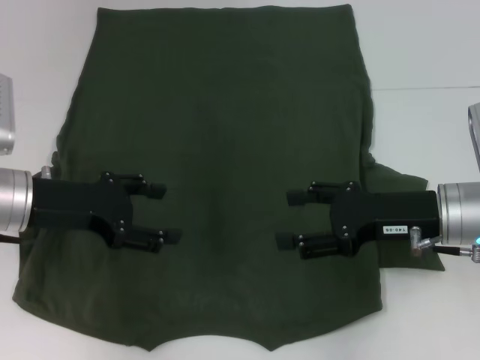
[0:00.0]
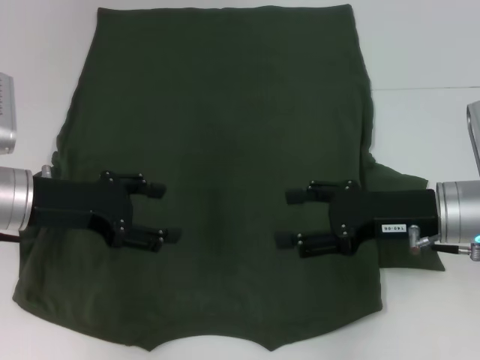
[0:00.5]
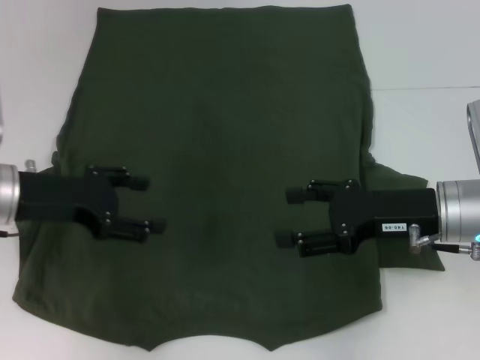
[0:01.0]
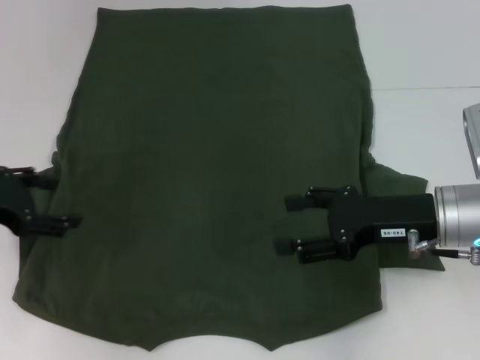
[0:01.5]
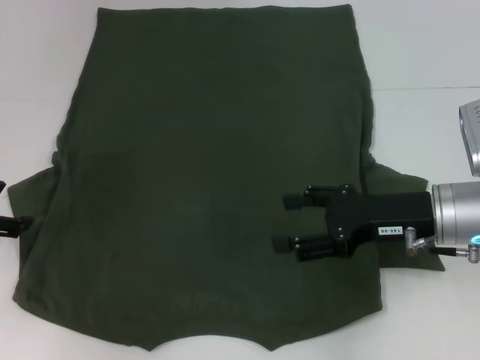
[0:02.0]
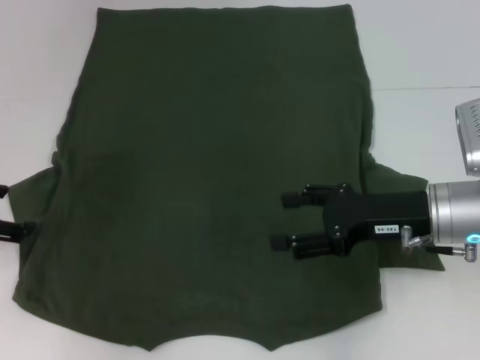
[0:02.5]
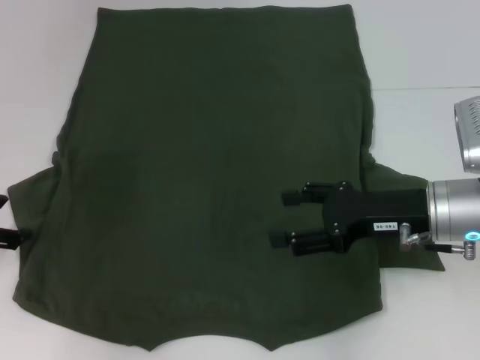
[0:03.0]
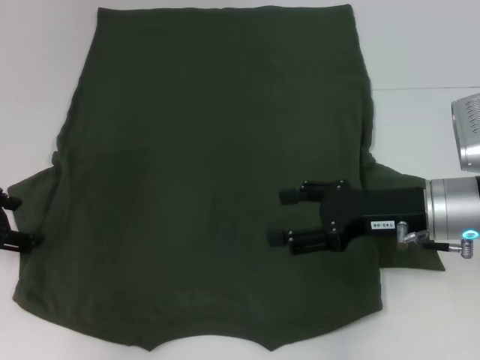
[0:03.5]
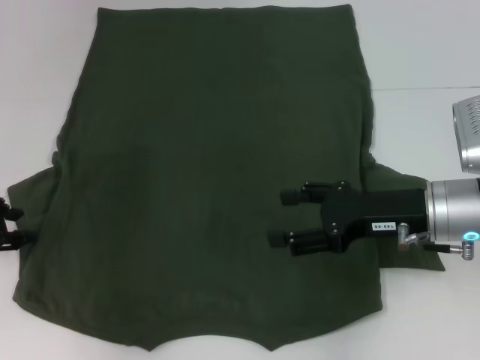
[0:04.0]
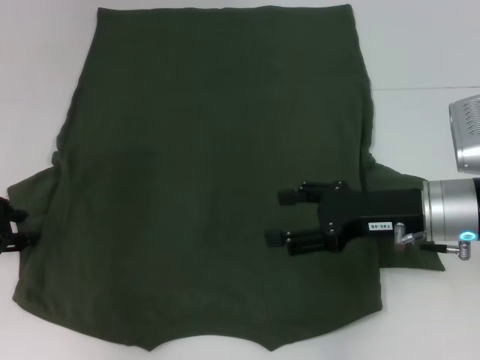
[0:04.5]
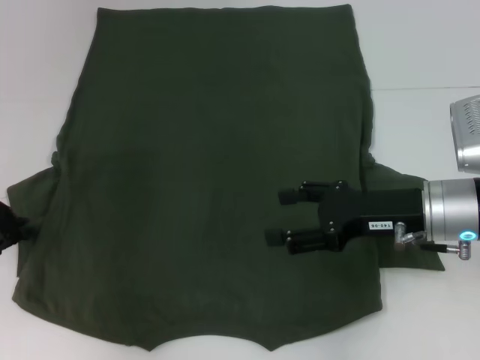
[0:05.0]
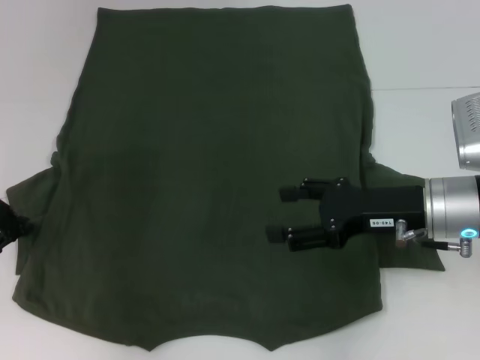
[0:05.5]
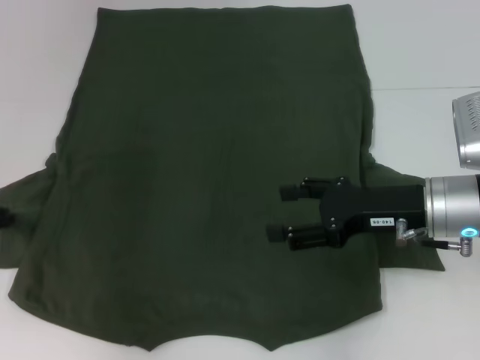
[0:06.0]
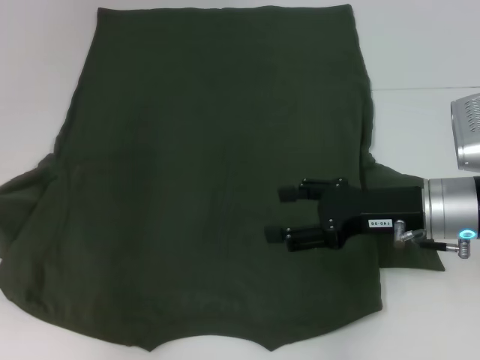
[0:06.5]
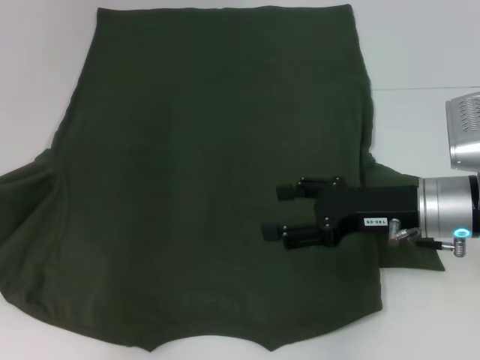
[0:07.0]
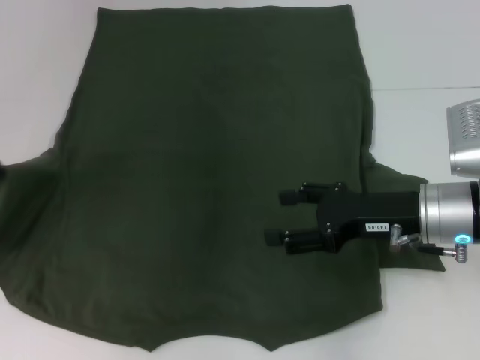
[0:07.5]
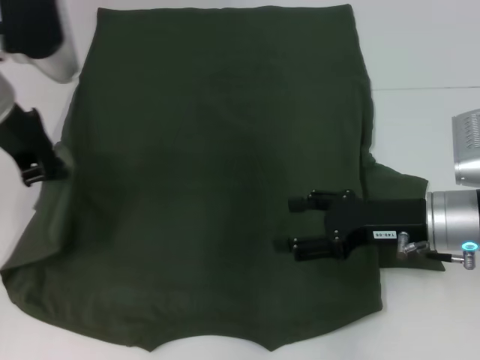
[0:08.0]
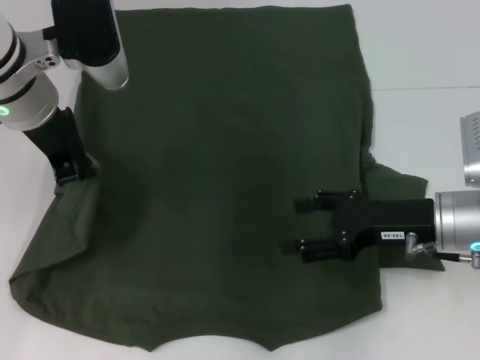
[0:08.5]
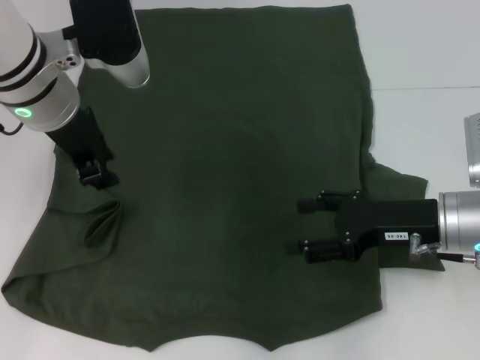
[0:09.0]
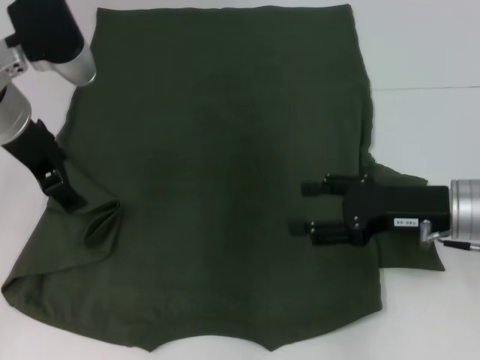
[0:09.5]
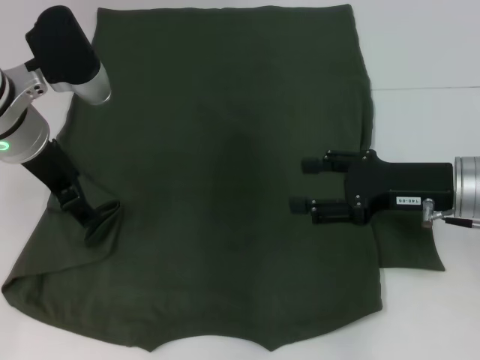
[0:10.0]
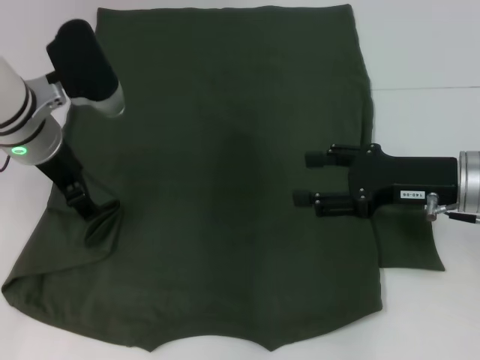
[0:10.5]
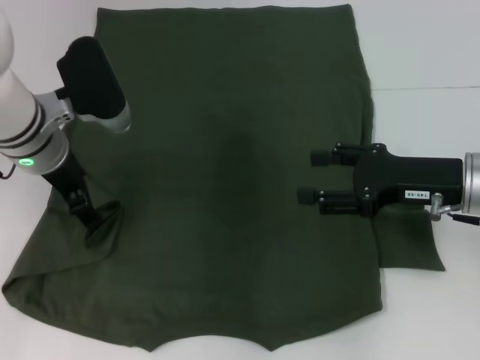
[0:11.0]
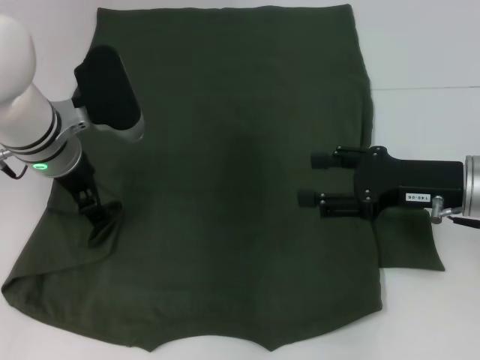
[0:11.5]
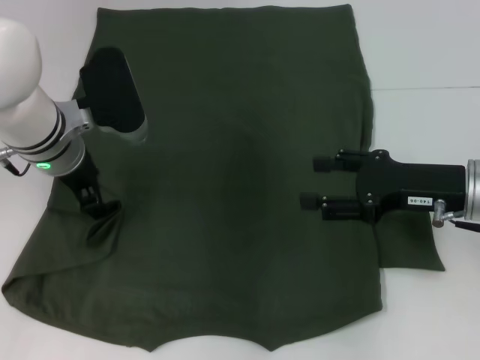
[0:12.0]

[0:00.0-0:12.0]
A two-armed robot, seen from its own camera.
0:00.0 to 0:02.0: The left gripper is displaced to the left by about 10 cm.
0:02.0 to 0:04.0: The left gripper closes.
0:04.0 to 0:06.0: The left gripper closes up.
0:06.0 to 0:08.0: The left gripper is displaced to the right and upward by some 15 cm.
0:08.0 to 0:10.0: The left gripper opens up.
0:10.0 to 0:12.0: The left gripper changes place by about 5 cm.

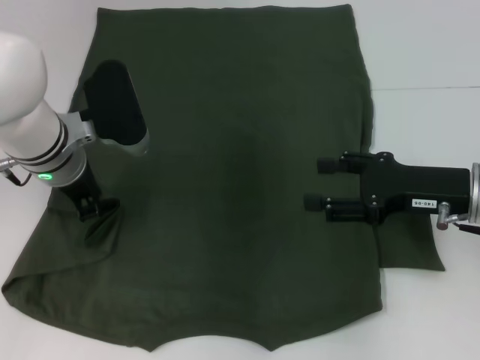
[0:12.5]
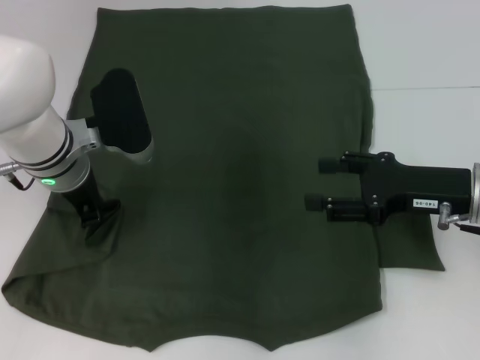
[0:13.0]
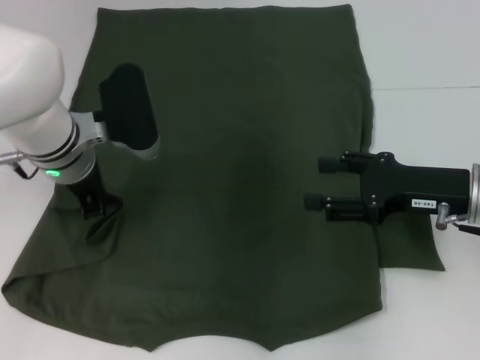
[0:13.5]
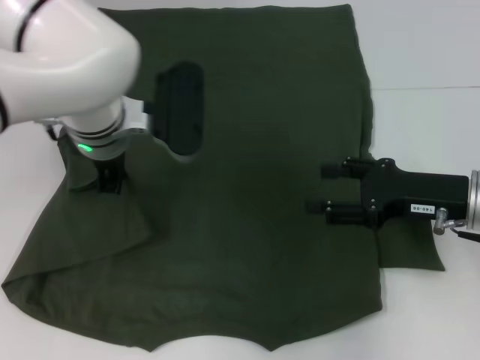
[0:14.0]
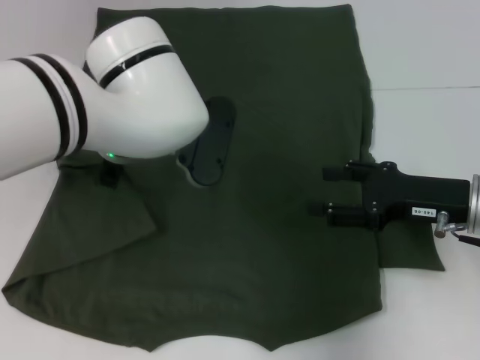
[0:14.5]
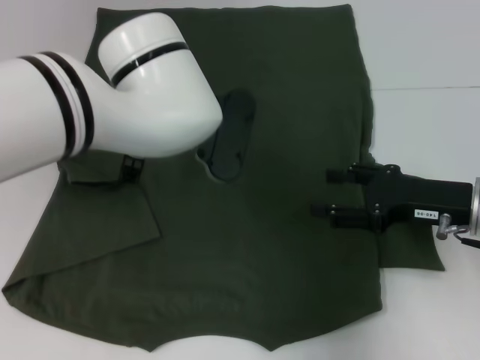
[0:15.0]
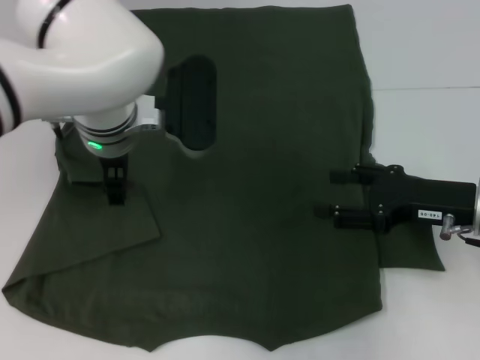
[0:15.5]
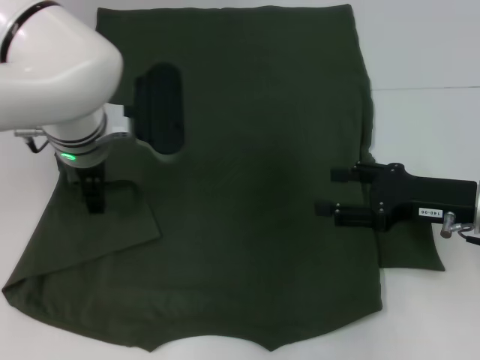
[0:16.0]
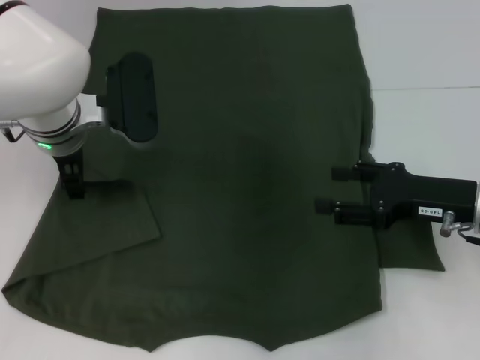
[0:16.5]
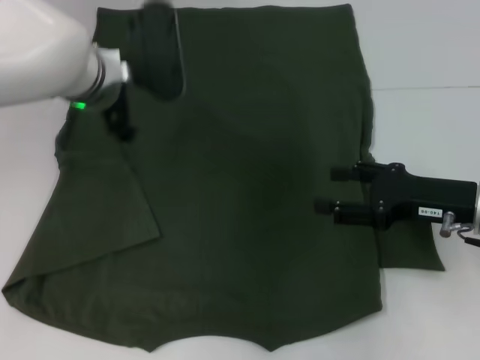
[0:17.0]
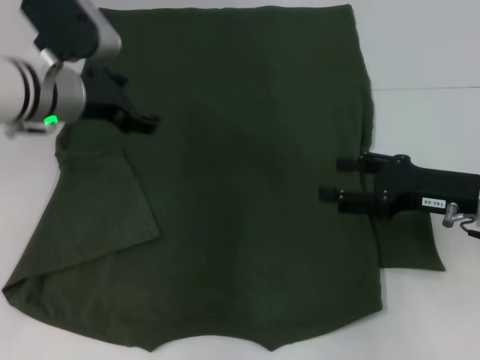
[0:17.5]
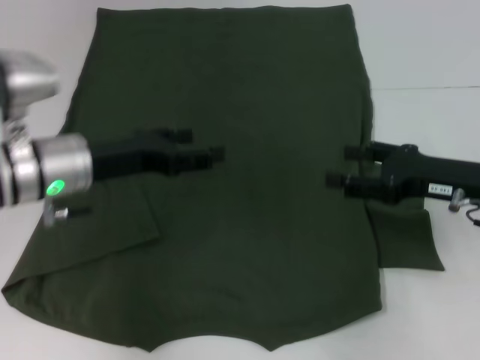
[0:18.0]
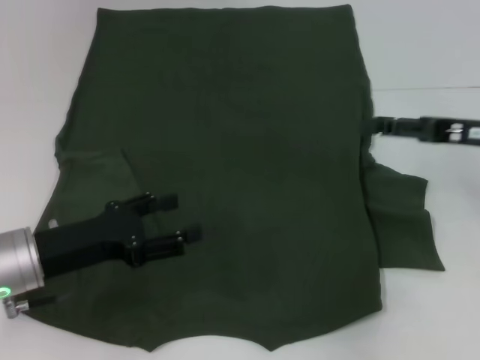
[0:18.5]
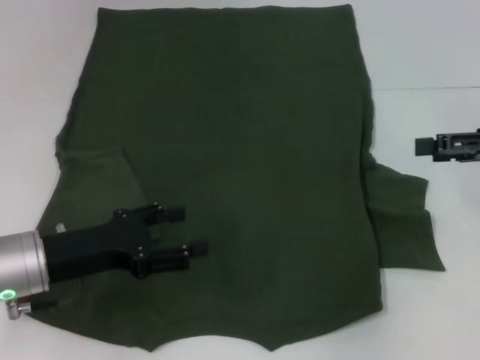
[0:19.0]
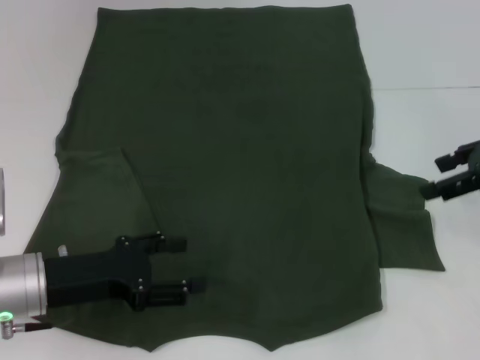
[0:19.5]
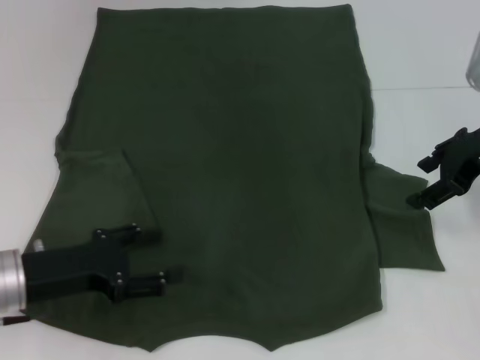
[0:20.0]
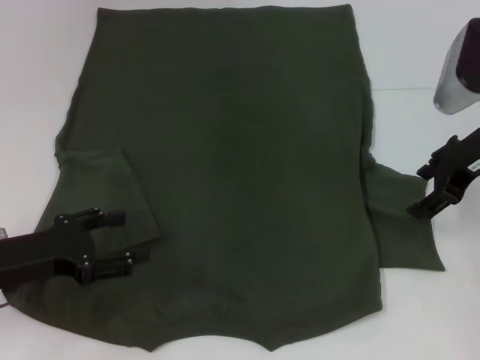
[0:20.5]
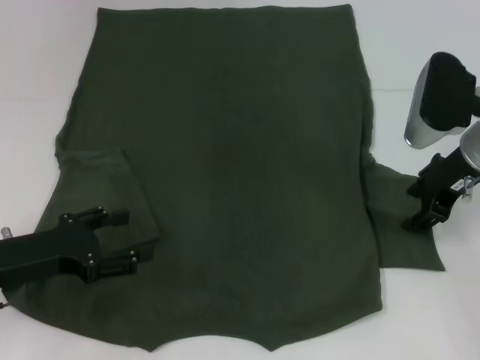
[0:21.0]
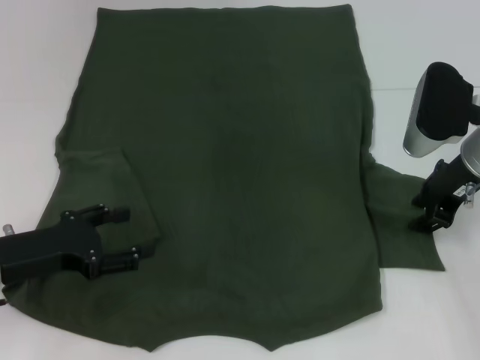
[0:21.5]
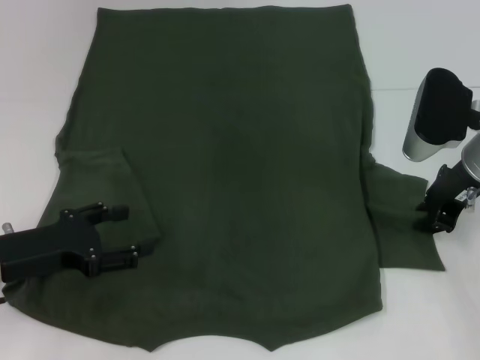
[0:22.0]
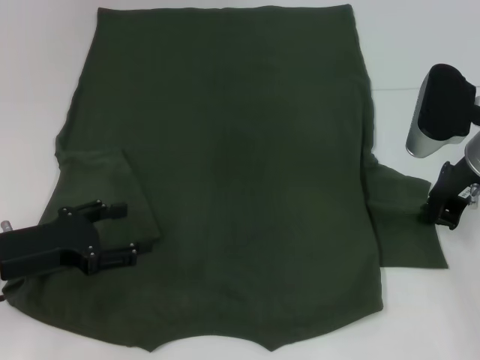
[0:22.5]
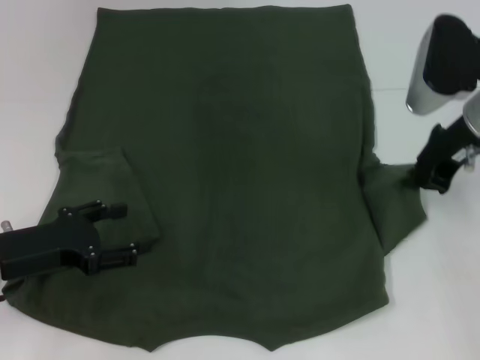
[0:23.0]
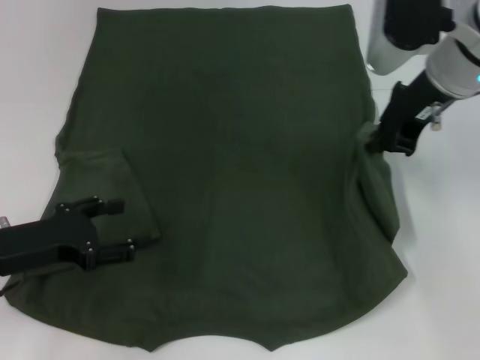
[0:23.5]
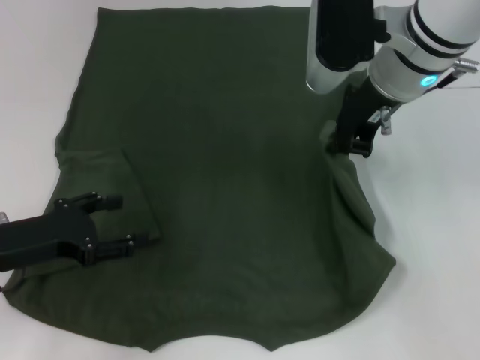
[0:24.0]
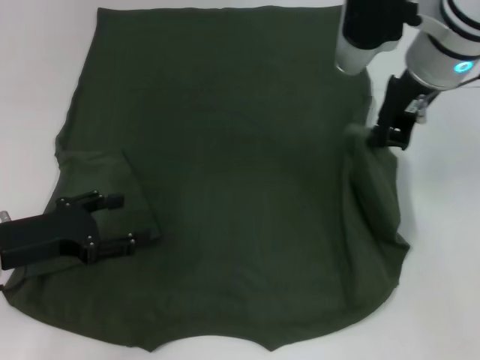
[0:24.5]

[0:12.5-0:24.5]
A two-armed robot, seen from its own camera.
Step, 0:12.5 to 0:17.0: Fold the bottom left sleeve with your left hand.
0:12.5 to 0:14.5: The left gripper shifts roughly 10 cm to the right, and closes.
0:14.5 to 0:16.5: The left gripper moves to the left, roughly 10 cm, and opens up.
0:16.5 to 0:18.5: The right gripper moves upward, some 5 cm; the left gripper shifts approximately 20 cm backward, to the left and downward.
0:18.5 to 0:20.5: The right gripper ends up some 5 cm from where it was.
0:20.5 to 0:22.5: The right gripper closes up.
0:22.5 to 0:24.5: The right gripper moves upward and to the left, about 15 cm.

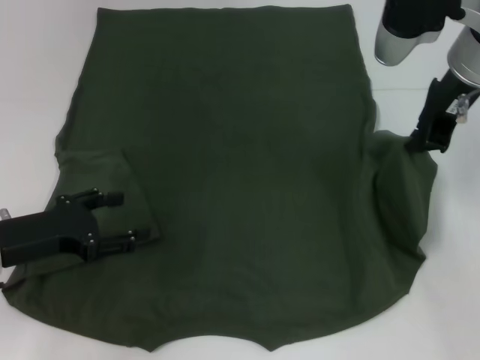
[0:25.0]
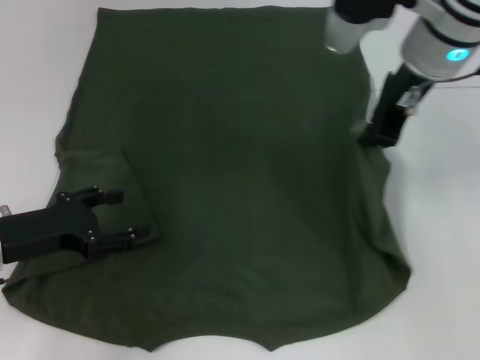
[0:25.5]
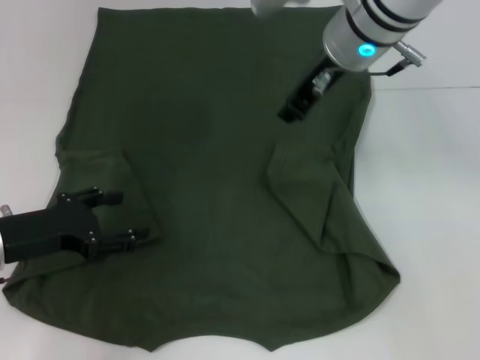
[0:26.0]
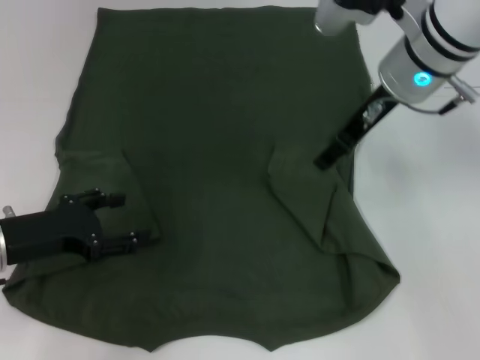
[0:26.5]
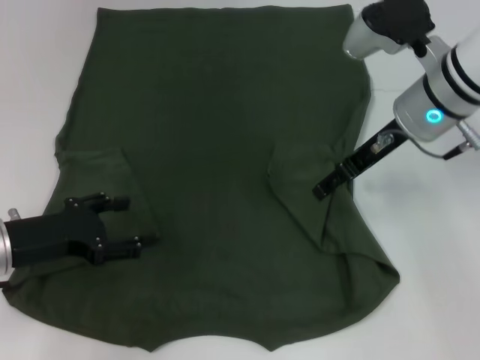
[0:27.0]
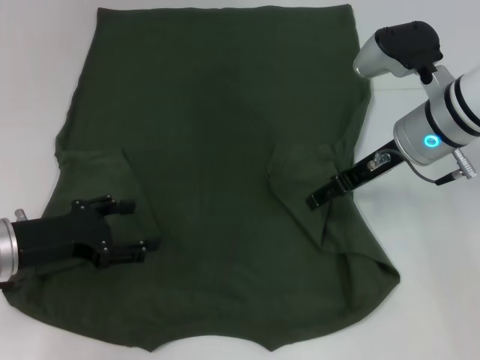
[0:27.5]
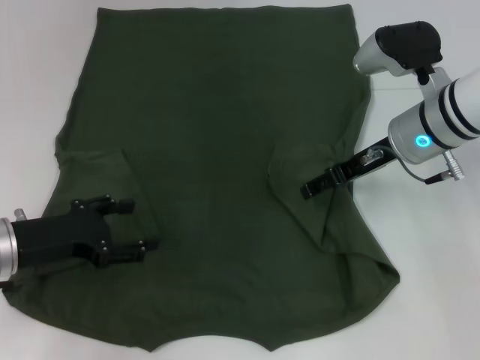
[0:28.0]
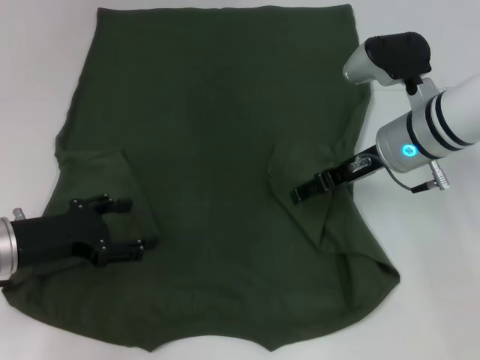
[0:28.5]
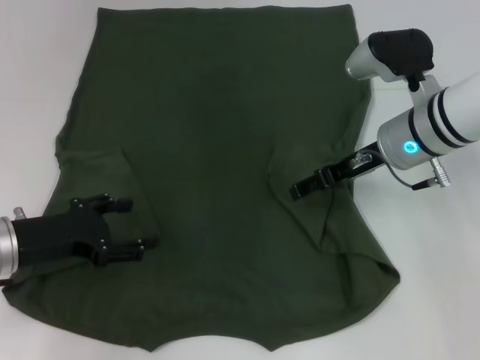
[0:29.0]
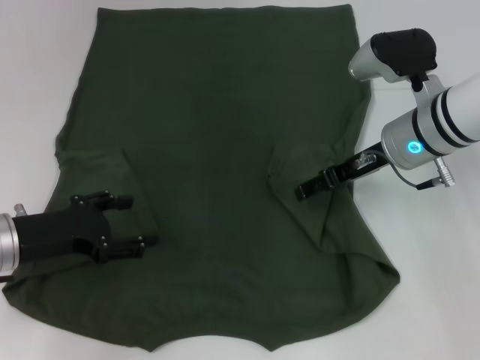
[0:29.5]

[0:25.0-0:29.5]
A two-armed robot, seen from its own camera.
0:25.0 to 0:27.0: The right gripper goes roughly 5 cm downward, reaches approximately 10 cm to the left, then returns, and opens its fingers.
0:27.0 to 0:29.5: The grippers make only small movements.
